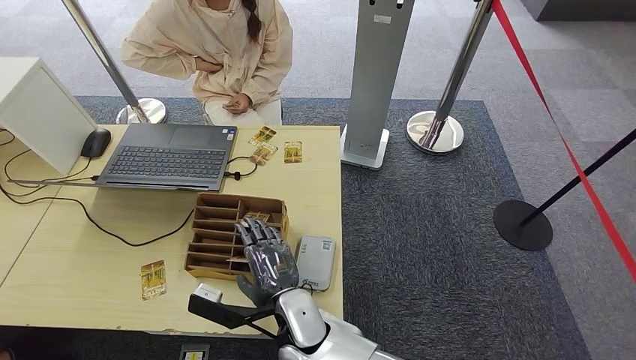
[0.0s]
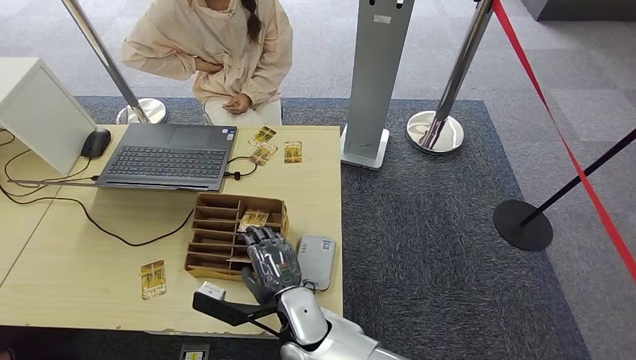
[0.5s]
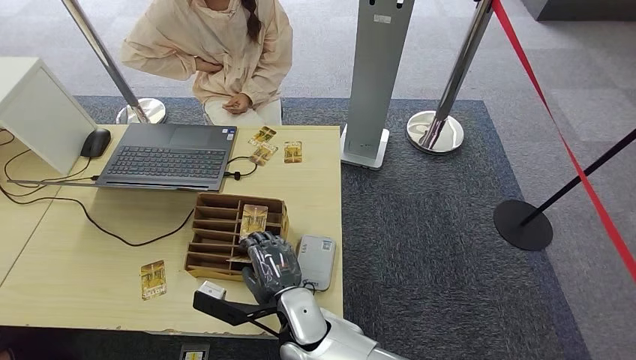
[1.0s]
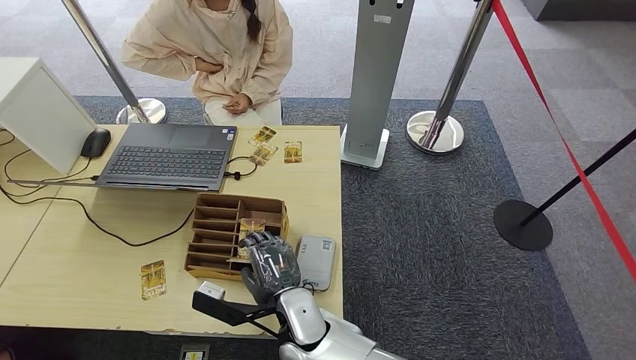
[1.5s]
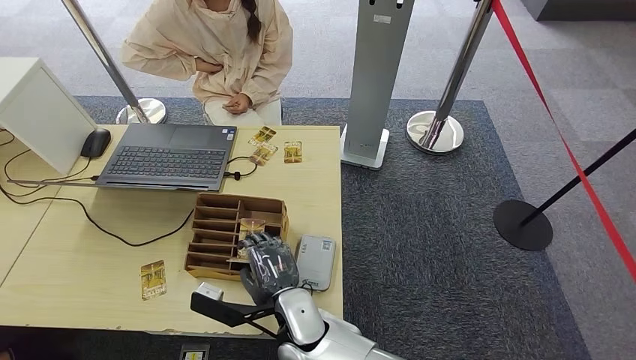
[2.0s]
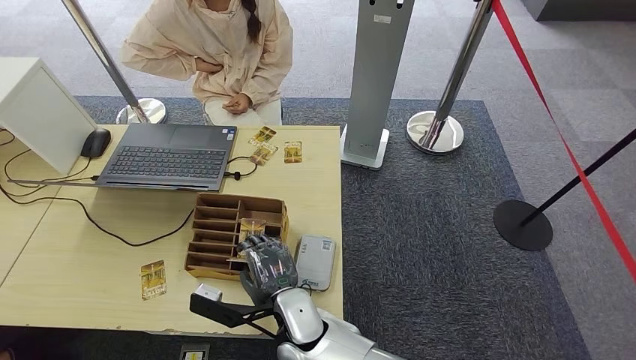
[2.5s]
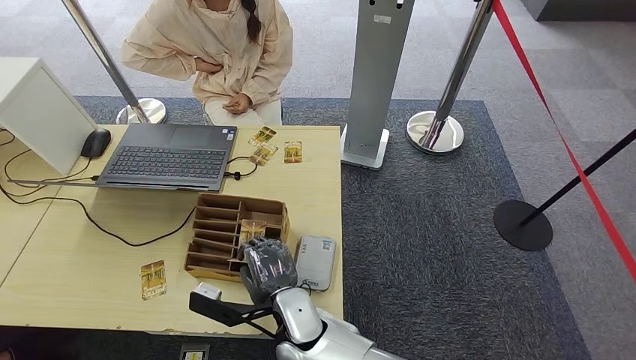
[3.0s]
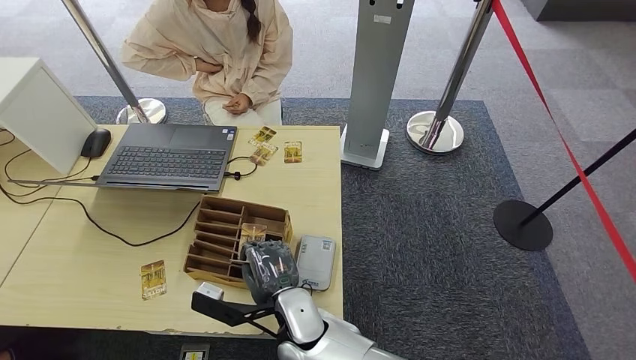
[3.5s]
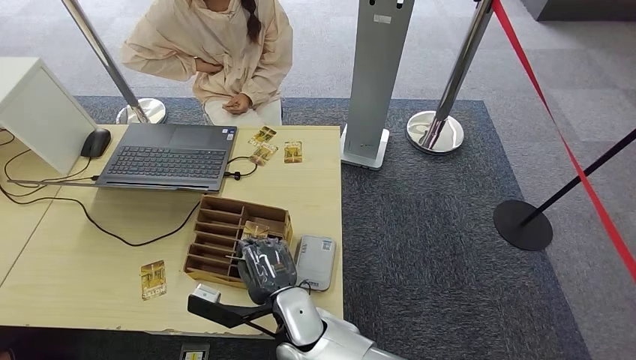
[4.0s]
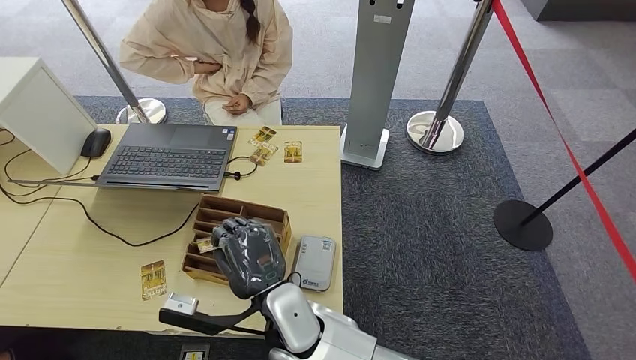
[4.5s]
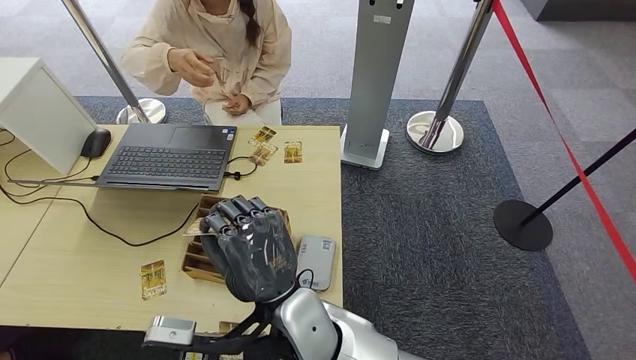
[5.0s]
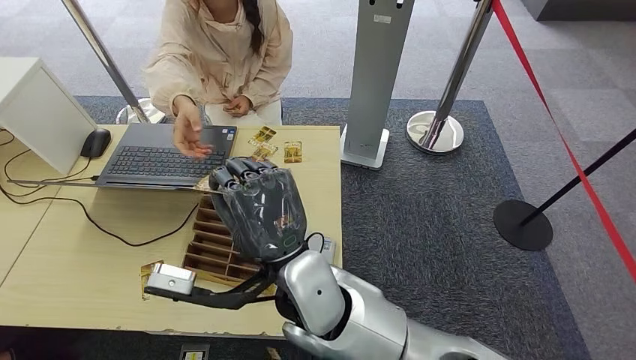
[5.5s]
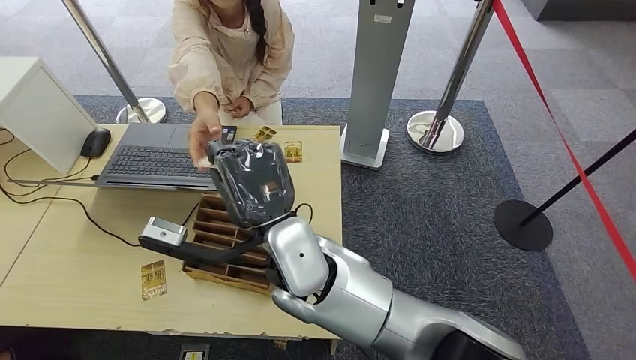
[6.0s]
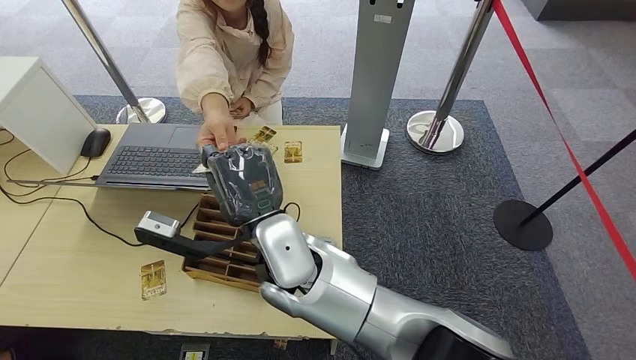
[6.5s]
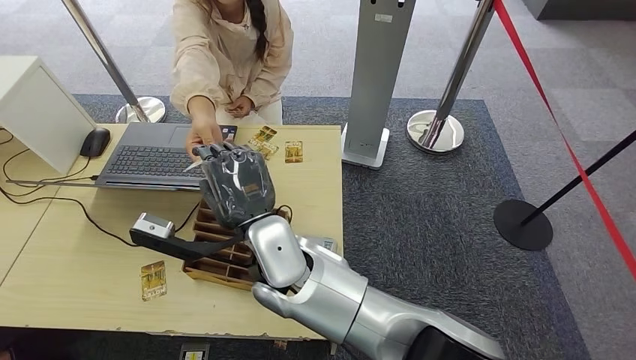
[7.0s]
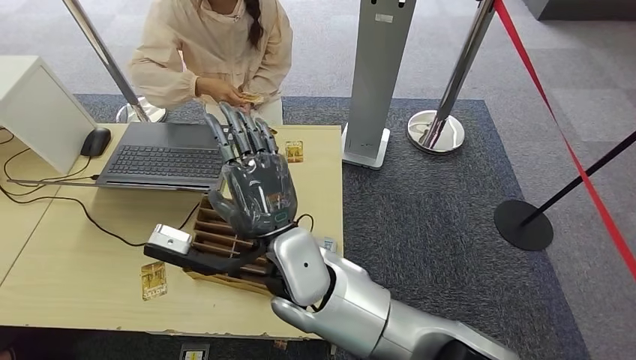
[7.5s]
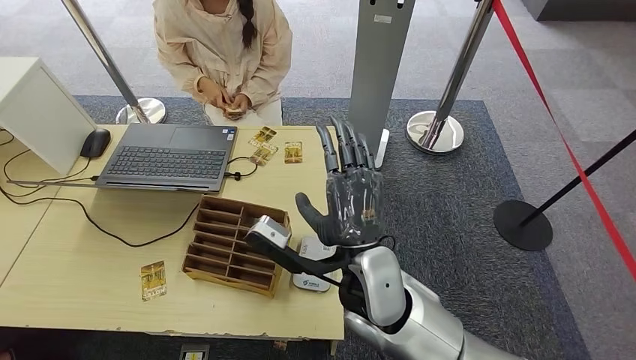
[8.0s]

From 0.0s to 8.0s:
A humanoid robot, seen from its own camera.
Step, from 0.0s to 4.5s: Pick up the room key from the key card box.
Step, from 5.0s to 8.0s: Hand the room key to the person.
From 0.0s to 2.0s: Both hands stay about where they are.
From 2.0s to 4.0s: The two hands keep their place.
From 4.0s to 6.0s: The right hand heads upward, covering some 15 cm.
From 6.0s to 8.0s: The right hand is displaced to the right by about 10 cm.
